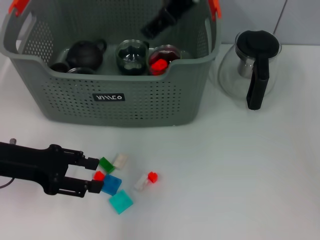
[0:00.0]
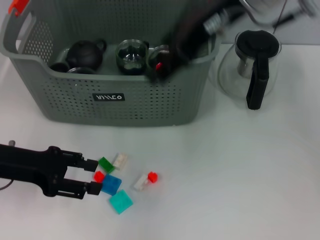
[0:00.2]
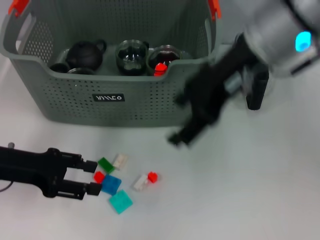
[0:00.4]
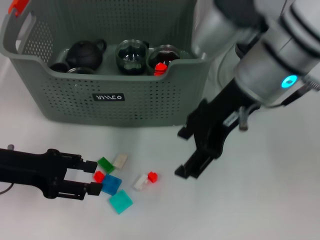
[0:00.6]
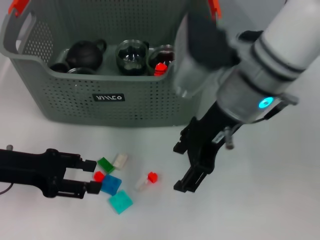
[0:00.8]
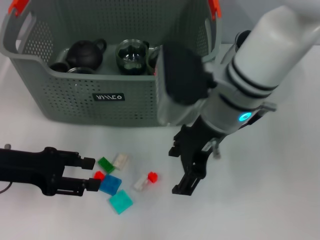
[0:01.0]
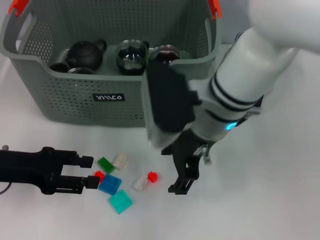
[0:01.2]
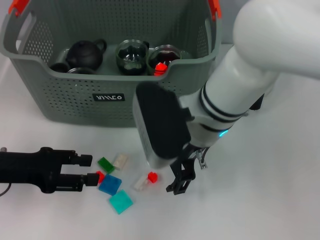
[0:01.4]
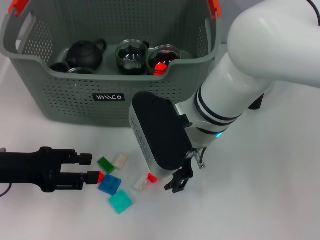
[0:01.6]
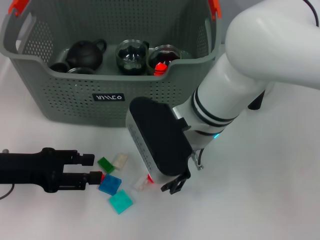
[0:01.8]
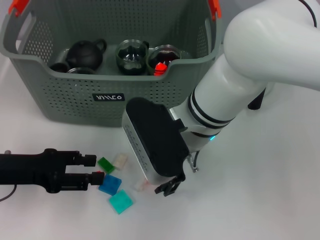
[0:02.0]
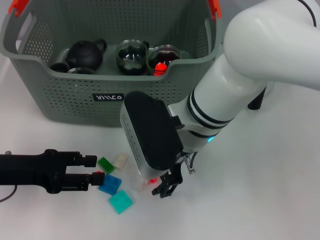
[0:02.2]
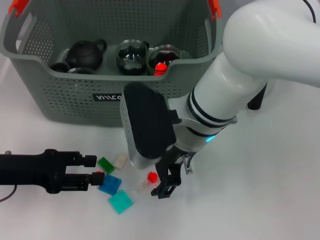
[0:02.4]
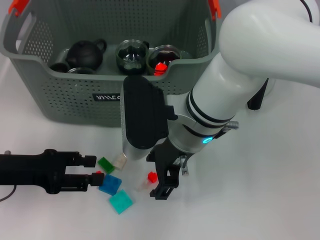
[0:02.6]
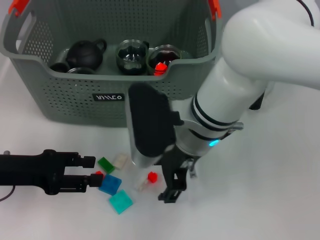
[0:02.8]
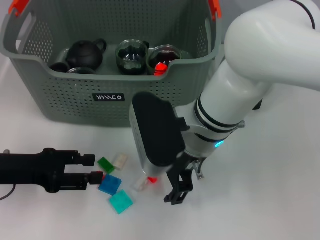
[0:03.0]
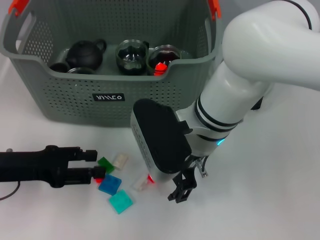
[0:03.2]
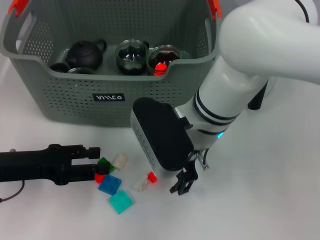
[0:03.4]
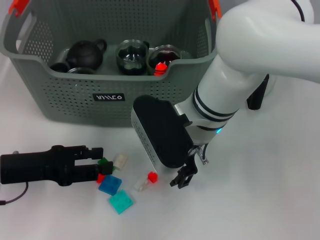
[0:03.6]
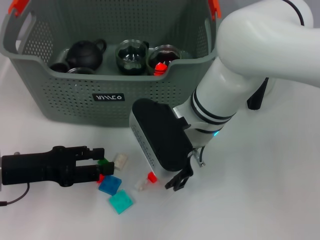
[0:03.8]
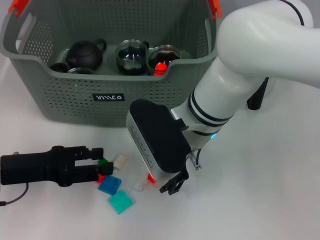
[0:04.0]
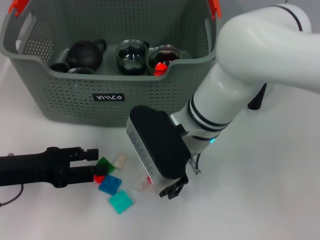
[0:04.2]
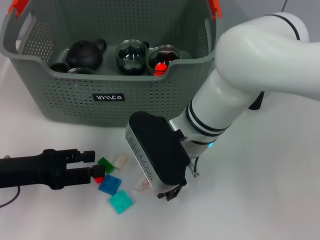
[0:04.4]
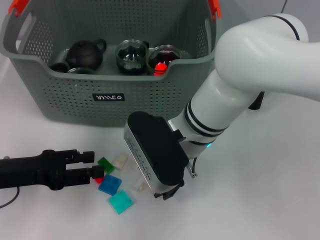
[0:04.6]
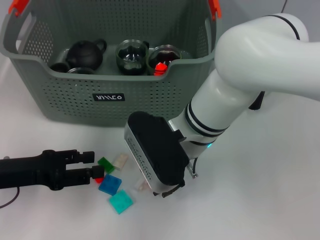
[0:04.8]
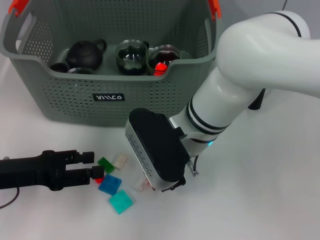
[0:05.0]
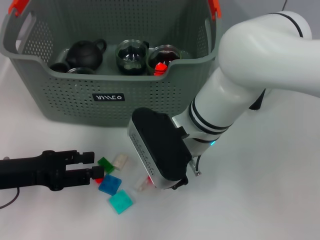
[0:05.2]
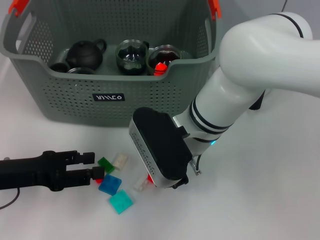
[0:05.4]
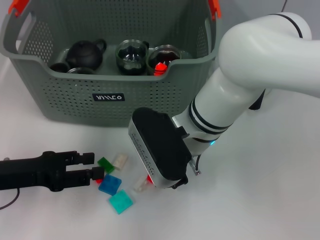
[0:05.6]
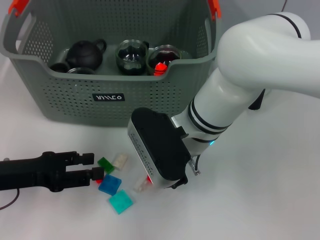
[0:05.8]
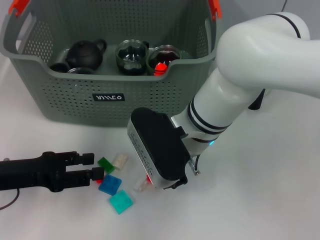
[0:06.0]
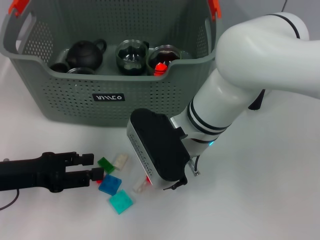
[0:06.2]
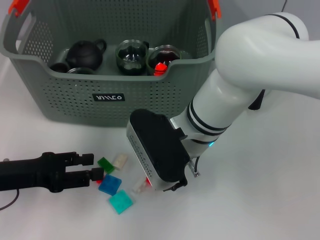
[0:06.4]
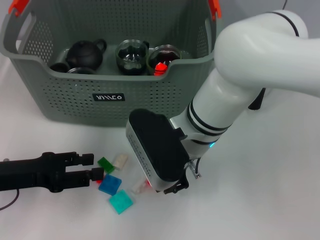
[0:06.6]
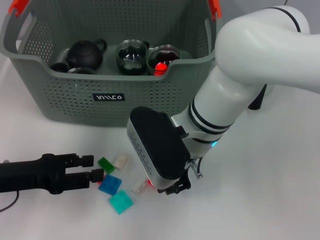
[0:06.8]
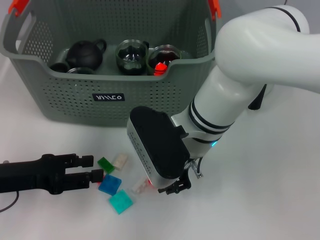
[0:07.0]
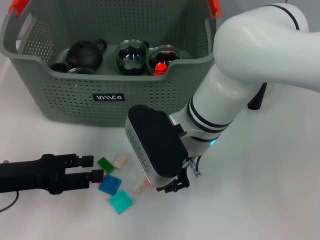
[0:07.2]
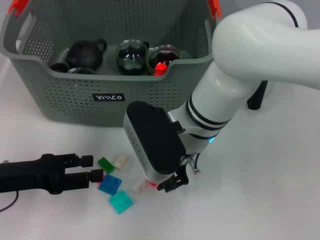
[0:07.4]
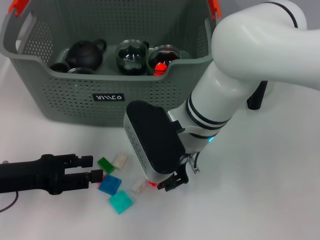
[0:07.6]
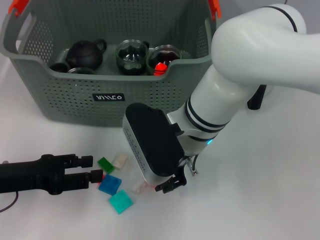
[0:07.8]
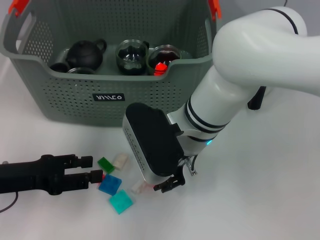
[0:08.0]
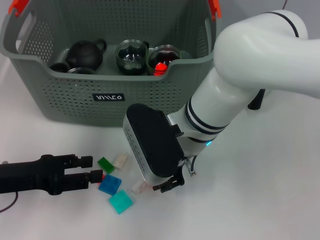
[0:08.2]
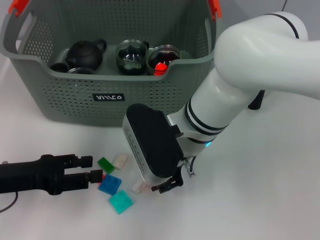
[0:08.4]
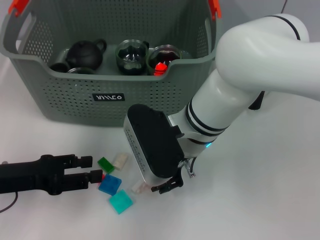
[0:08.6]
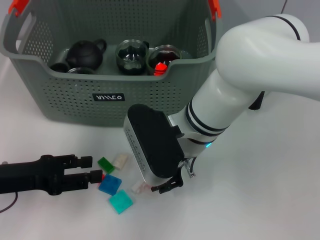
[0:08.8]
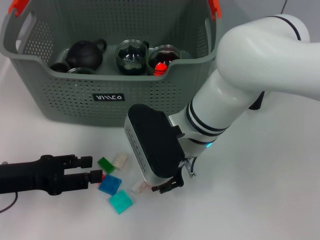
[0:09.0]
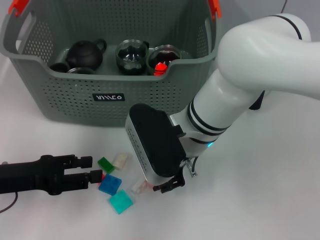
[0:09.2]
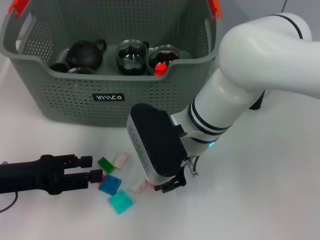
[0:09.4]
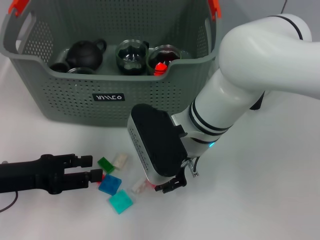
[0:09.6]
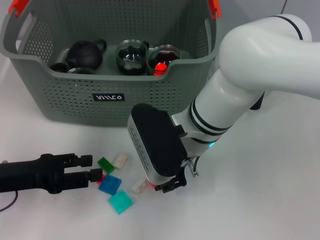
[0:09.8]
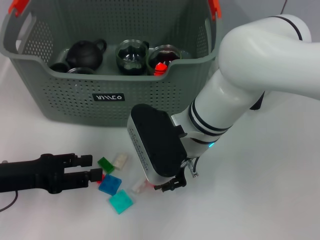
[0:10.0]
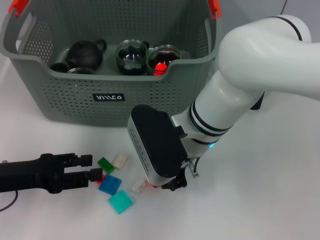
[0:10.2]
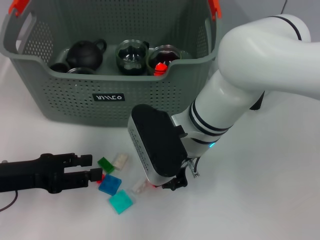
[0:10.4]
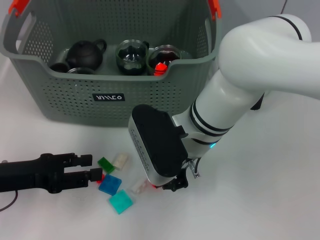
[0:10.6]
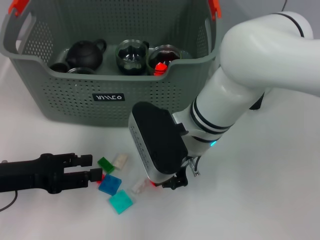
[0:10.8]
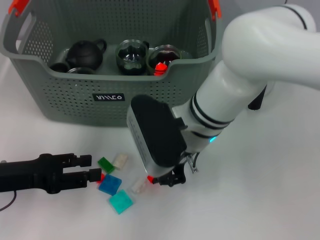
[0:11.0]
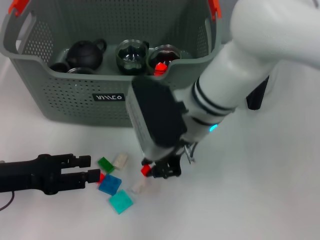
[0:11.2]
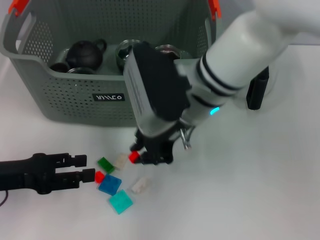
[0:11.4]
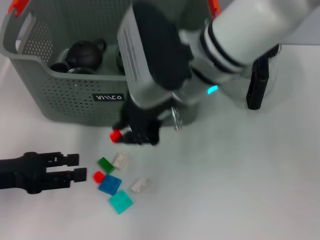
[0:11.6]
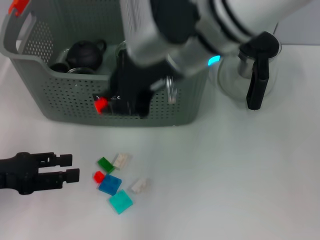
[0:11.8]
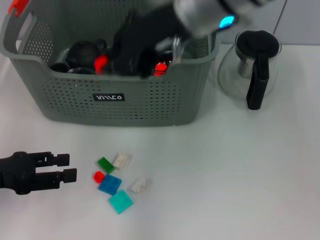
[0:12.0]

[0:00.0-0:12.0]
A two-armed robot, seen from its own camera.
Task of the whole recording: pick up the teacup on the table and place it into the storage bin, pick up the block on the table and place it into the storage bin.
Step, 0:00.0 to 0:11.2: Grasp the orange block with right gripper.
0:00.0 to 0:01.6: The right gripper heads downward and backward, covering some 20 cm.
0:01.6 to 0:04.4: There are only small adjustments of the grippers.
0:04.4 to 0:06.0: The right gripper closes its fingers.
0:06.0 to 0:09.0: Neither gripper changes place.
0:09.0 to 0:10.4: Neither gripper changes place.
0:10.4 to 0:12.0: The right gripper heads upward, covering roughly 15 cm.

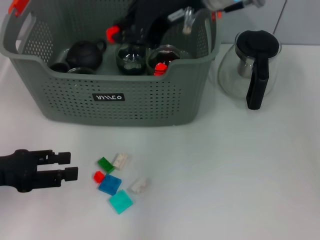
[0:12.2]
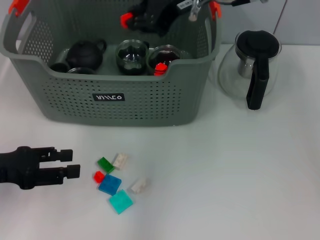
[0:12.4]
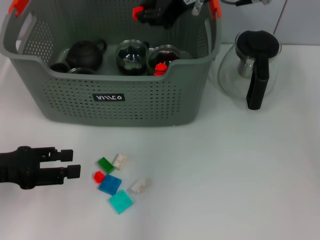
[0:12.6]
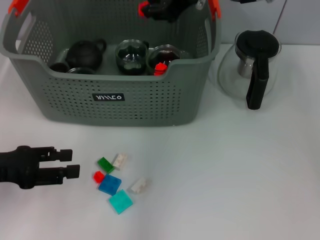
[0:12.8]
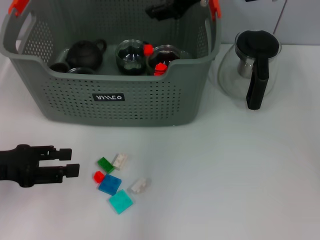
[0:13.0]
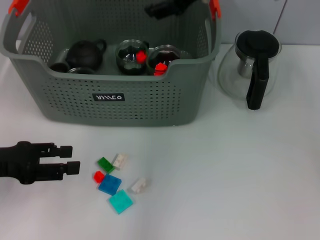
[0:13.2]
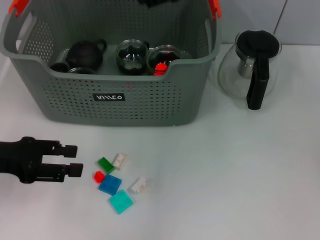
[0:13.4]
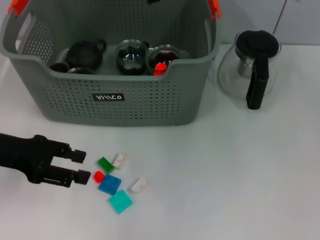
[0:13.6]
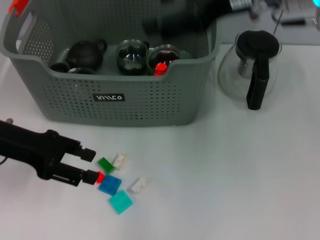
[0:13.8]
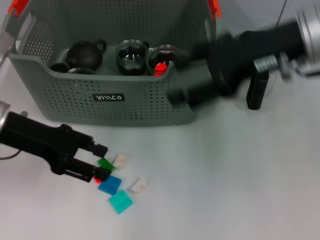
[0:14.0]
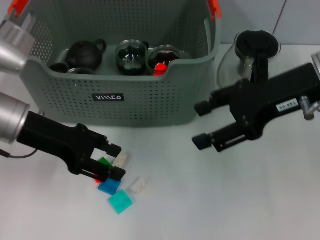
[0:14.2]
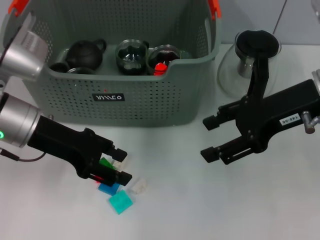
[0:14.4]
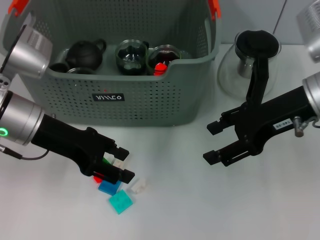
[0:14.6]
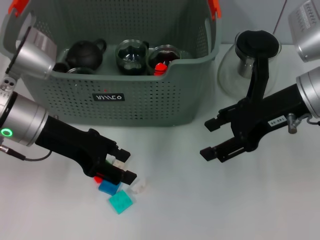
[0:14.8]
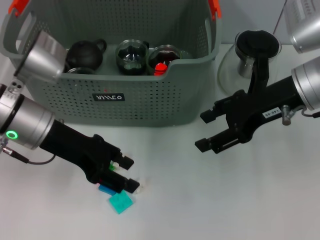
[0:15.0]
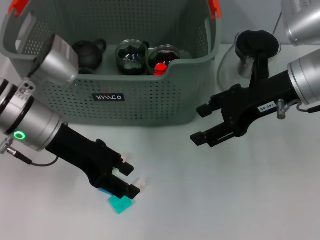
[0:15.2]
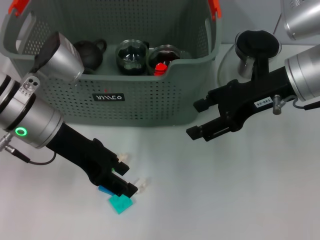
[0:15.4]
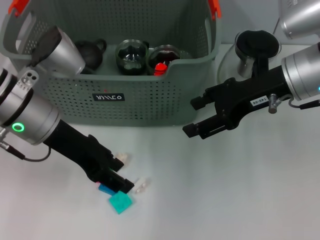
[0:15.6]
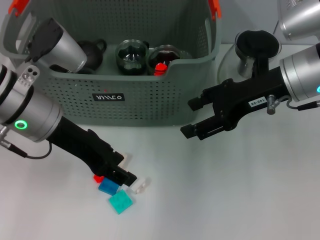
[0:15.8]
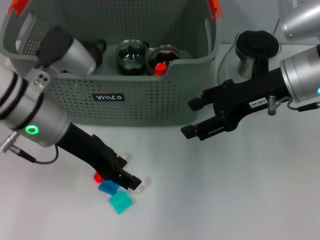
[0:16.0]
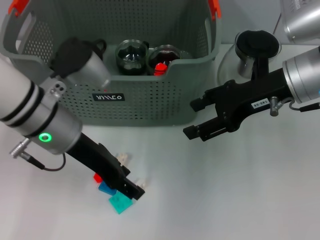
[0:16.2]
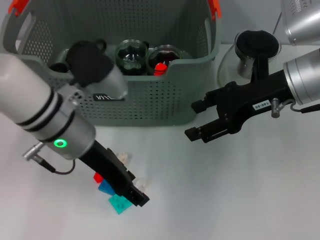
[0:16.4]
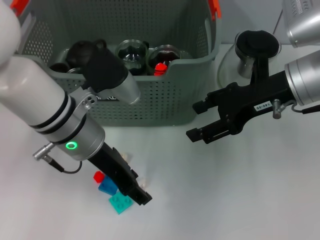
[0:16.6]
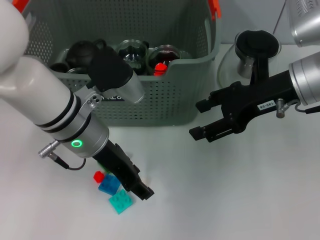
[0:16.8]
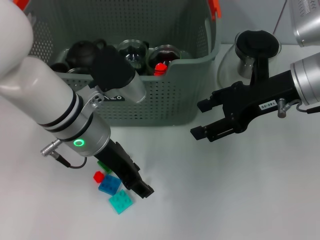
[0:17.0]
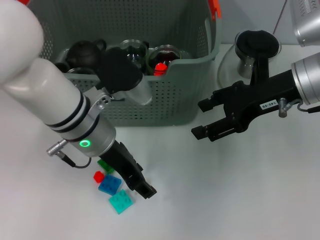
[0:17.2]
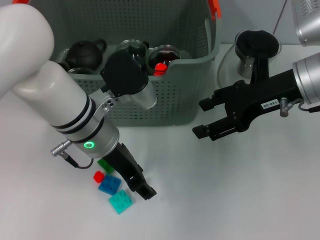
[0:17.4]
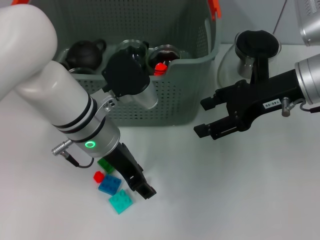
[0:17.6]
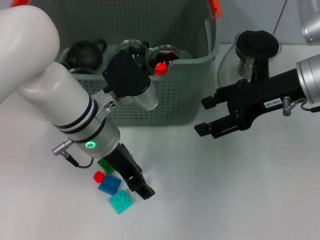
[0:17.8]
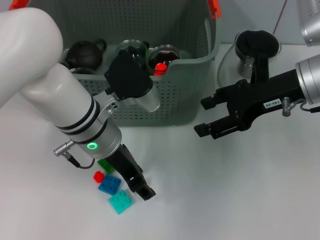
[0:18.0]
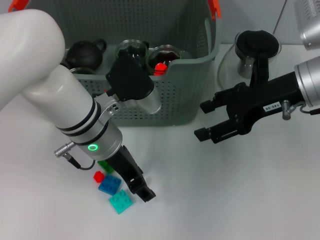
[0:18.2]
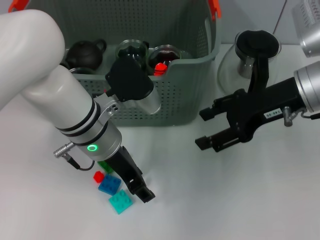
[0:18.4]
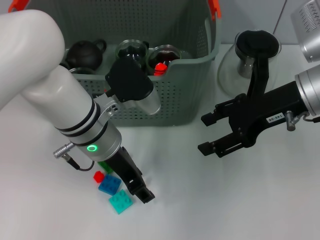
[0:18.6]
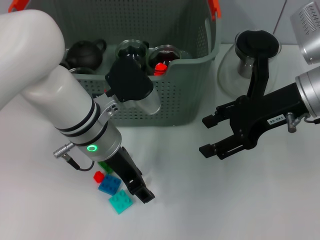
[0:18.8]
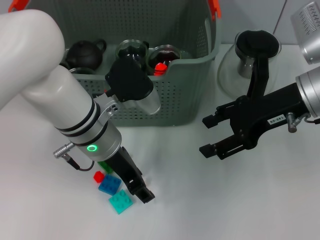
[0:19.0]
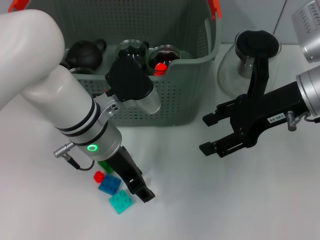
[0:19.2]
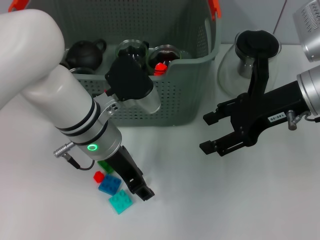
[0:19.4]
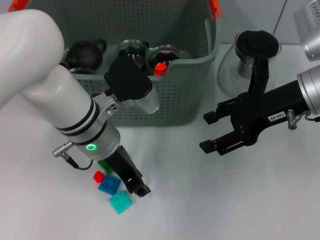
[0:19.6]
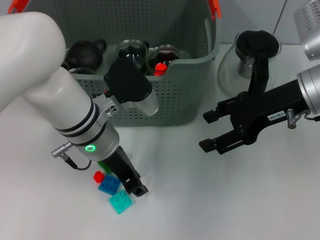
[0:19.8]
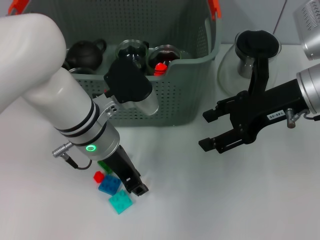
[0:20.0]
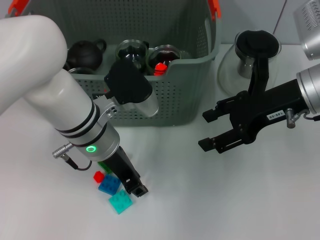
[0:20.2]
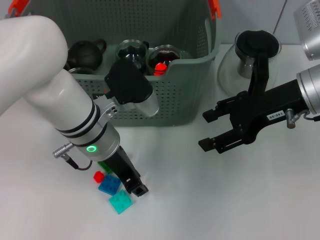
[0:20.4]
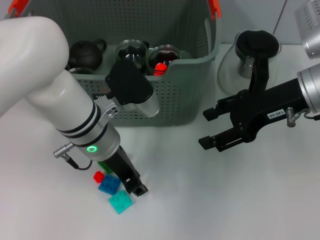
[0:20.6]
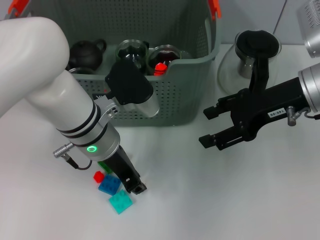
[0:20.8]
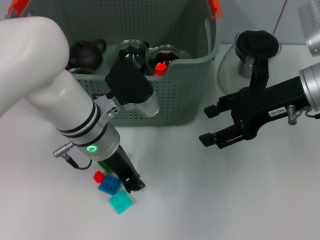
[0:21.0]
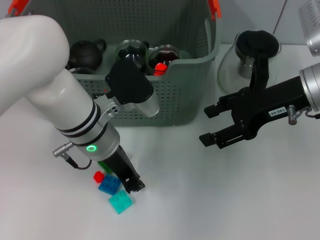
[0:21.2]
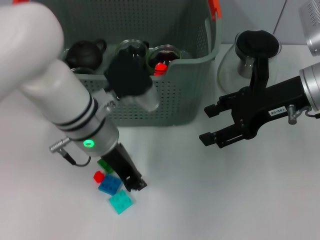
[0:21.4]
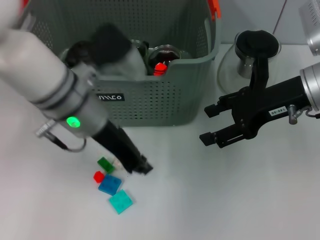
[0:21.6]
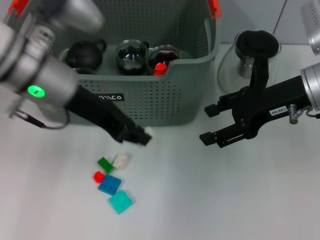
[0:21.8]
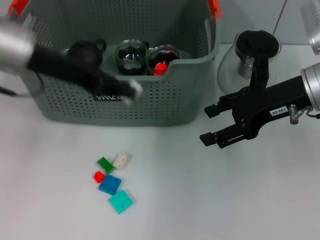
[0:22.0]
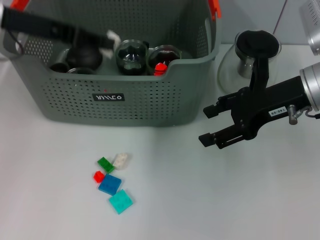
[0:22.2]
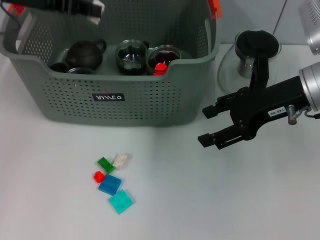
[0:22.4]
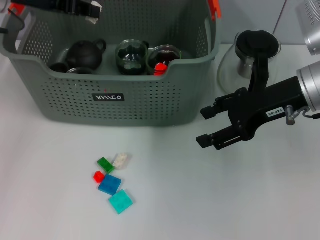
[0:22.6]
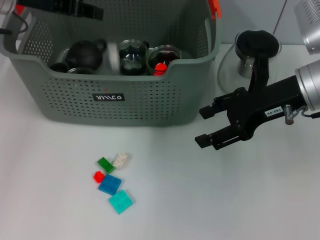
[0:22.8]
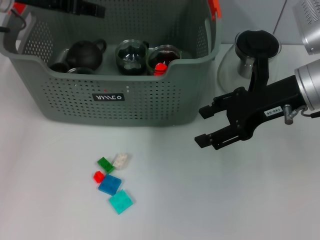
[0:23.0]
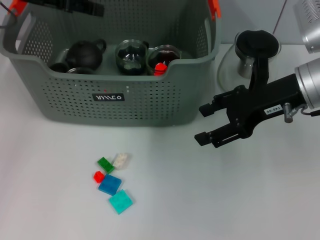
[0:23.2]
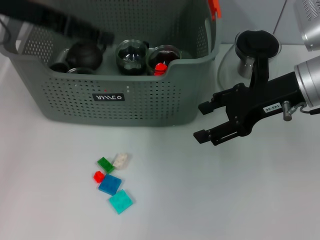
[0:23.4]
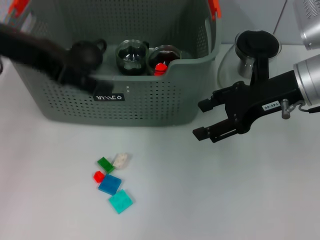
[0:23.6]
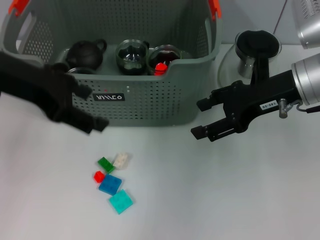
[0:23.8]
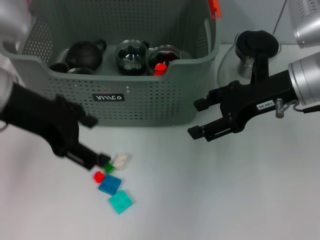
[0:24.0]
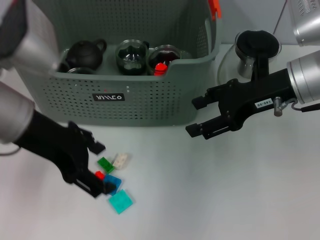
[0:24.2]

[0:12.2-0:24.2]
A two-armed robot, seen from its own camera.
Task of the whole recording: pick up the teacup on the table and place it into the storage bin, pick up the block on the table and place it into the storage bin.
Step, 0:12.2 to 0:13.2: Place the orange block in the storage box with right gripper.
Step, 0:13.4 to 0:21.4: Grasp the white block with left gripper.
Step, 0:21.8 to 0:22.8: Place the white block in the storage box with left gripper.
0:12.2 to 0:13.8: The left gripper moves forward and upward, about 10 cm, while the right gripper goes roughly 10 cm to the right, and opens up.
0:13.8 to 0:15.2: The right gripper shifts about 10 cm downward. Meanwhile the left gripper is displaced to the right by roughly 10 cm.
0:15.2 to 0:16.6: The left gripper moves to the right, approximately 5 cm.
0:18.2 to 0:21.2: Both grippers stay about where they are.
0:21.2 to 0:22.6: The left gripper heads to the left, upward and forward, covering roughly 20 cm.
0:22.6 to 0:24.2: The left gripper shifts about 15 cm backward and to the right, and opens up.
